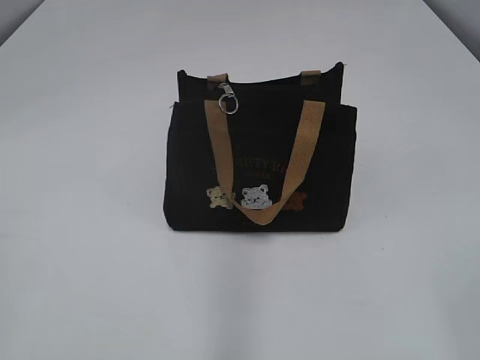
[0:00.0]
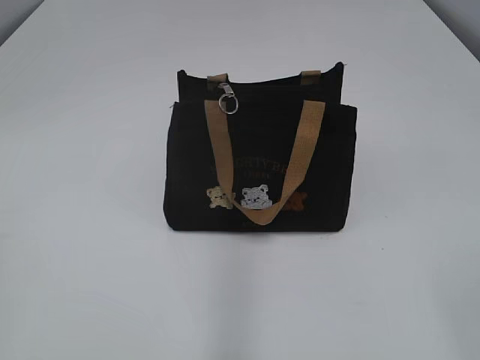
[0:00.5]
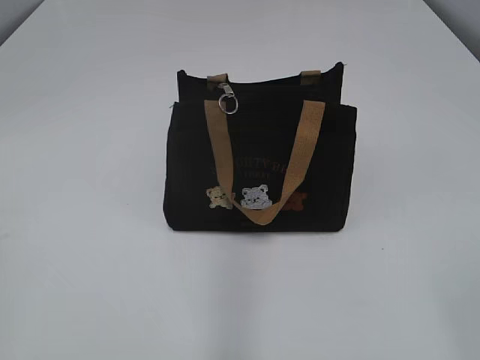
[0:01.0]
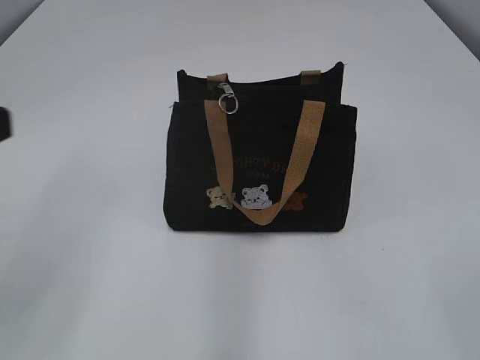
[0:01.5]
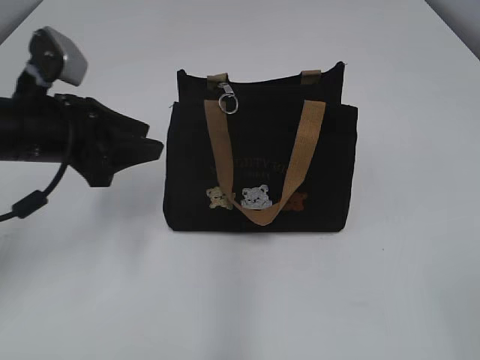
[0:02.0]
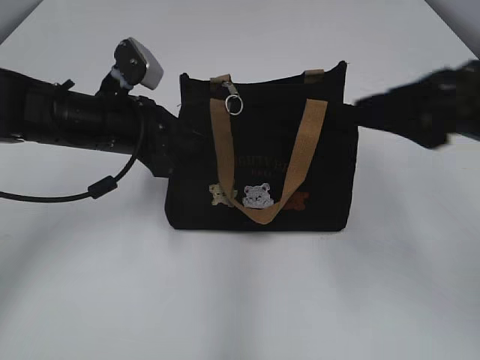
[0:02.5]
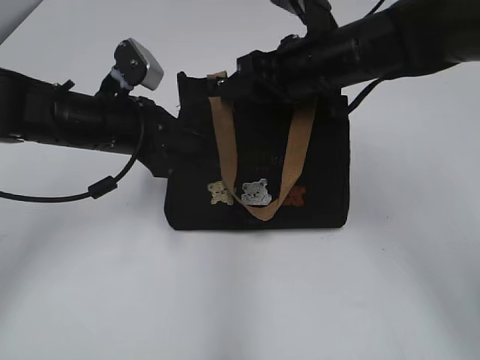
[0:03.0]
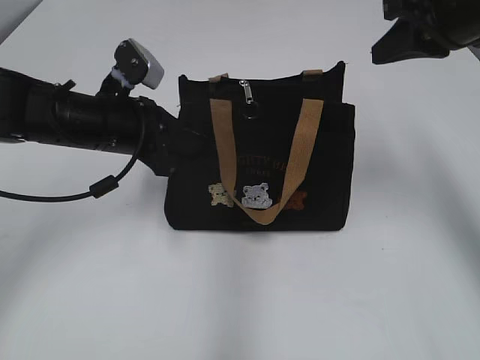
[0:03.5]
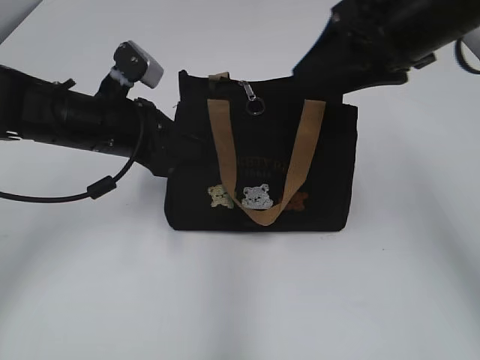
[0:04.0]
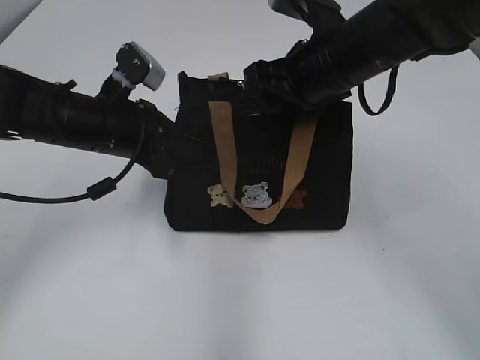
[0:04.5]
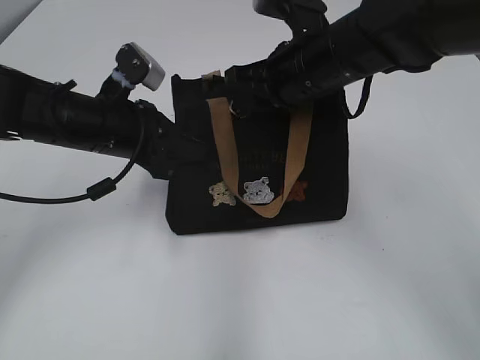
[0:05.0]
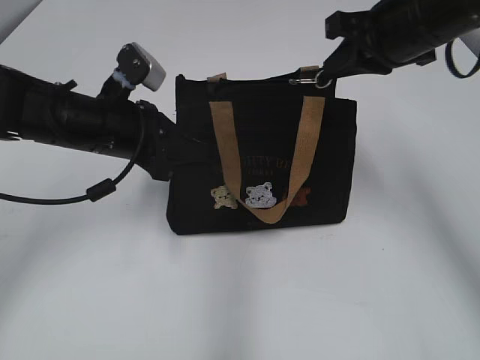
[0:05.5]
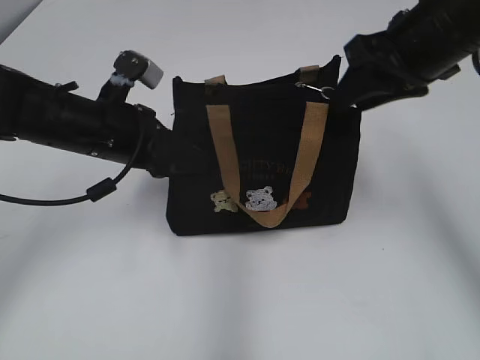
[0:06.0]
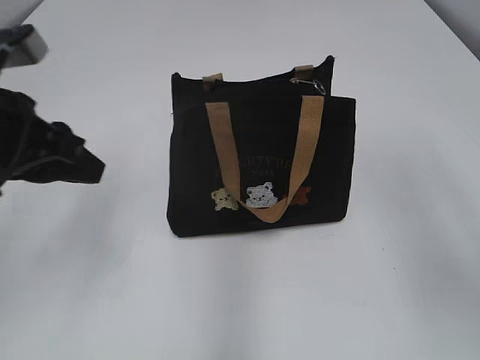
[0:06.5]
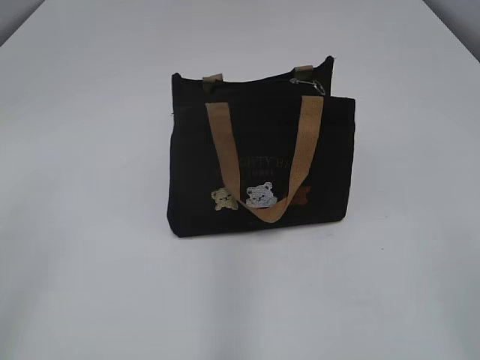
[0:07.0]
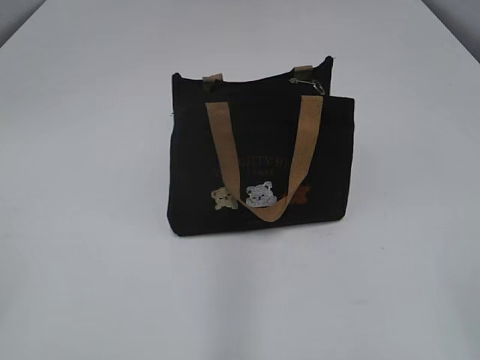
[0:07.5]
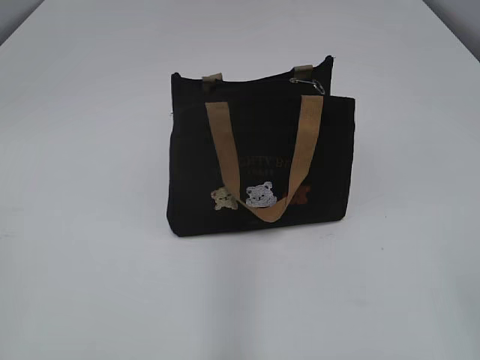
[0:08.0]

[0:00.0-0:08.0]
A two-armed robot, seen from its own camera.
Step, 0:00.0 to 0:06.0: Pull open the zipper with your right hand.
0:02.0 to 0:04.0: The right gripper moves forward, some 35 cm, and closes, then opens again. Meanwhile the left gripper moves to the right and forward, roughly 10 cm, and closes.
0:04.0 to 0:06.0: The right gripper moves some 10 cm to the left and comes back, and closes up. The left gripper closes and opens again.
0:06.0 to 0:08.0: The right gripper heads backward, covering roughly 35 cm; the left gripper shifts roughly 35 cm backward and to the left.

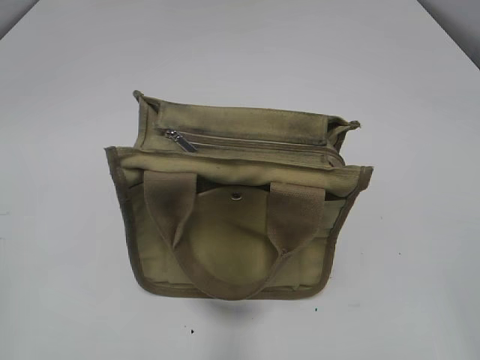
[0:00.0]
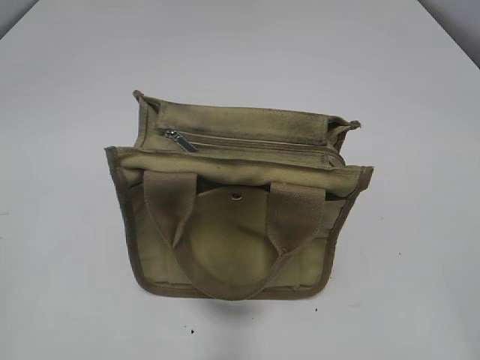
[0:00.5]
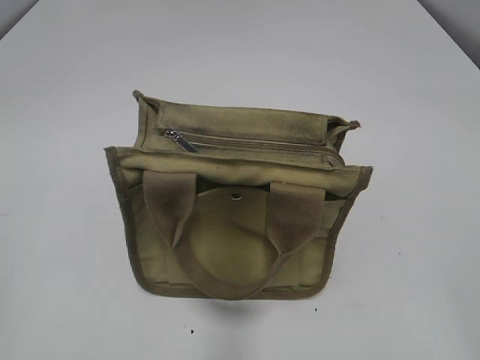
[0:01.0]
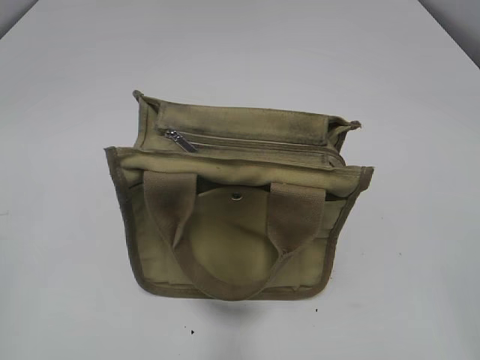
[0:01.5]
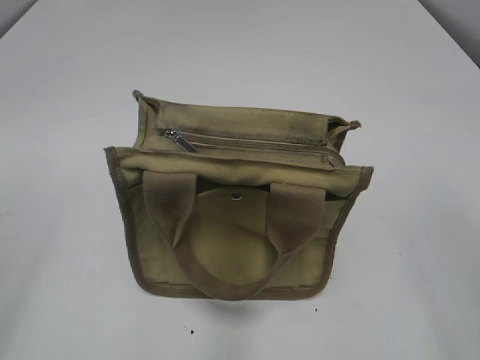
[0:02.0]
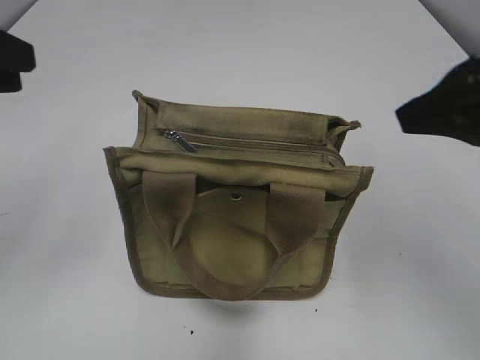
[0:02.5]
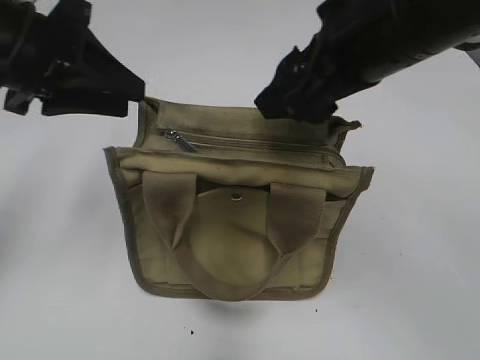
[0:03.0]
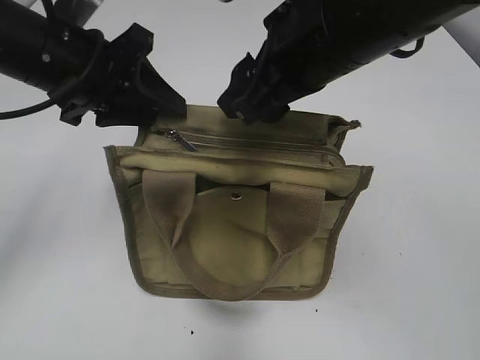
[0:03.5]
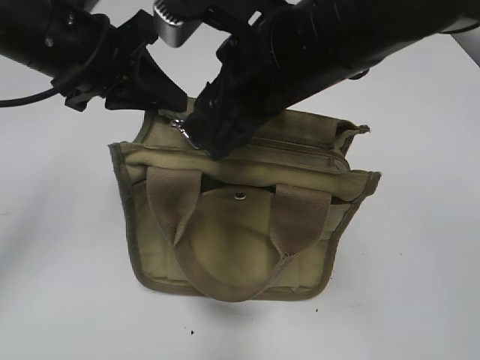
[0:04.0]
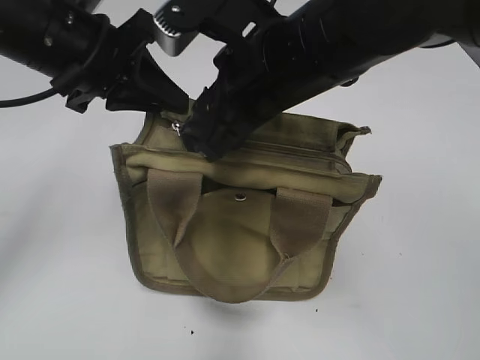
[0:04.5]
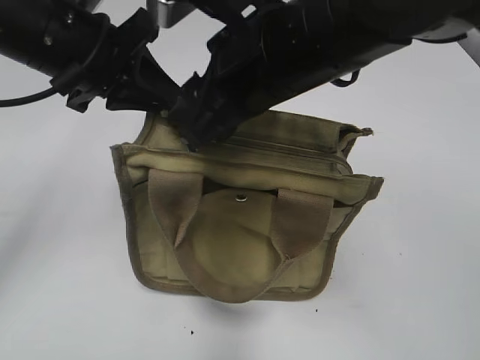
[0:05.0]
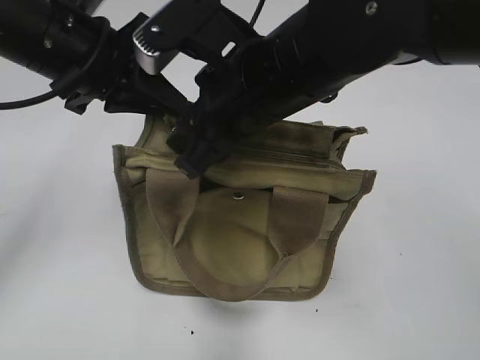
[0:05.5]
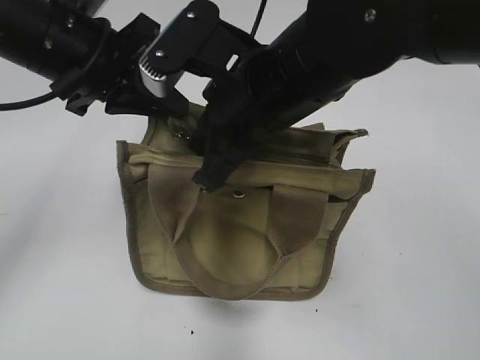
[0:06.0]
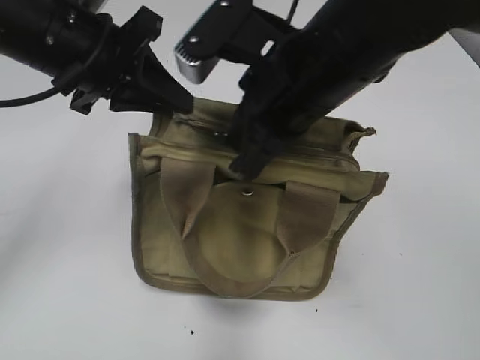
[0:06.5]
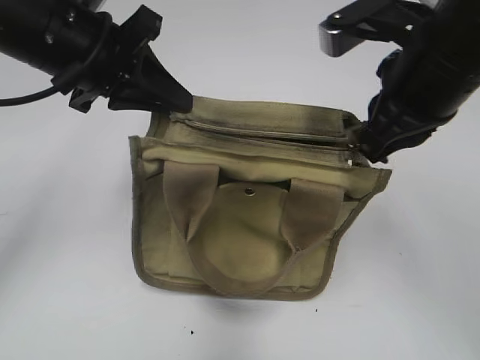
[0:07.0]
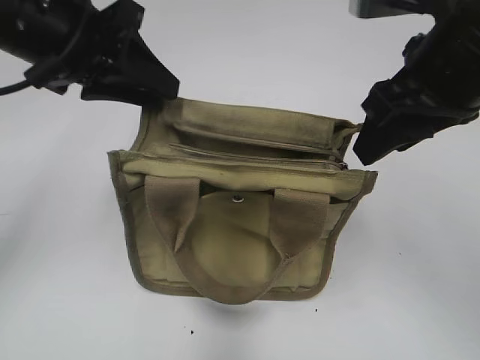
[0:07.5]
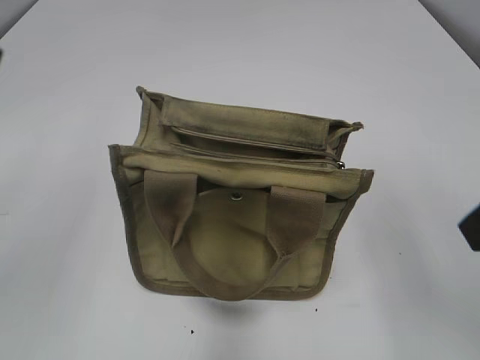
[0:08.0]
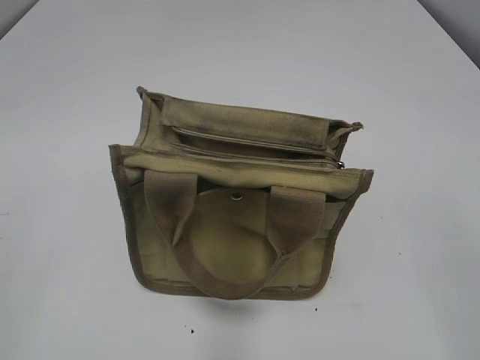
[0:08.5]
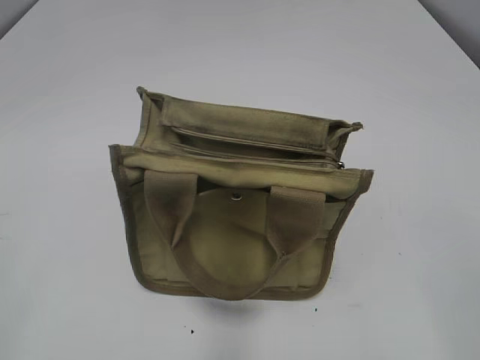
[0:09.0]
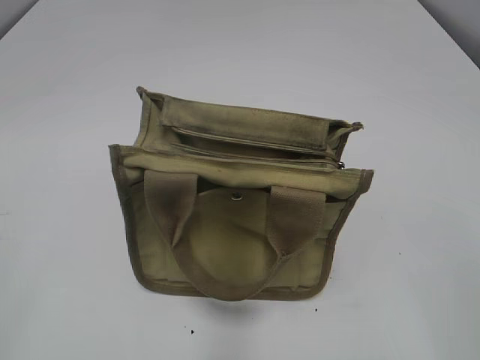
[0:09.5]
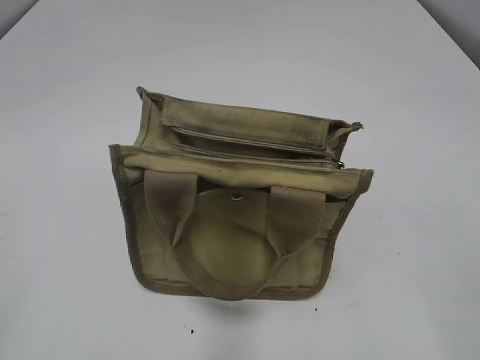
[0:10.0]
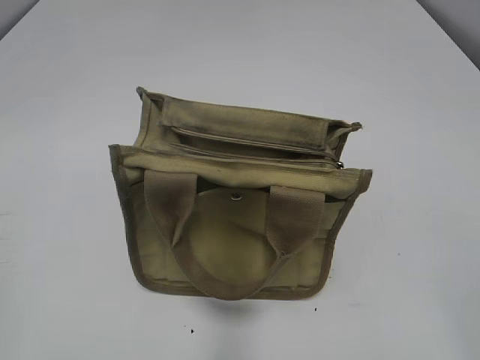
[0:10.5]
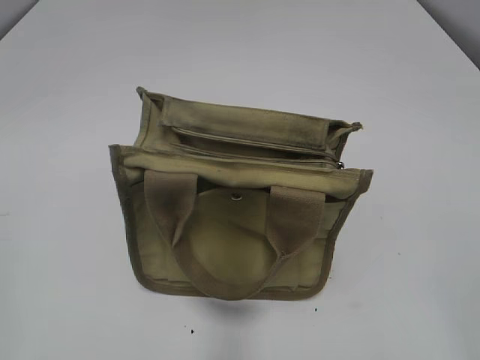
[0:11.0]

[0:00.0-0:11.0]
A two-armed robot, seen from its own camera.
Step, 0:00.0 to 0:07.0: Pull open the zipper with your right hand.
0:02.0 to 0:03.5: The right gripper travels forward and to the left by some 30 cm. The left gripper travels forward and to the right by approximately 30 cm.
0:03.5 to 0:05.5: The left gripper closes its fingers, while the right gripper moves approximately 5 cm.
0:05.5 to 0:07.5: The right gripper is displaced to the right by some 15 cm, and closes and opens again; the left gripper opens.
0:07.5 to 0:09.0: The left gripper goes approximately 35 cm backward and to the left, and opens; the right gripper goes about 30 cm backward and to the right.
